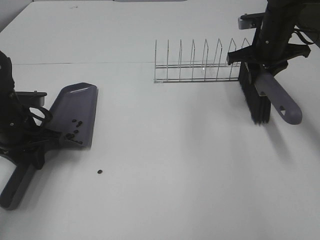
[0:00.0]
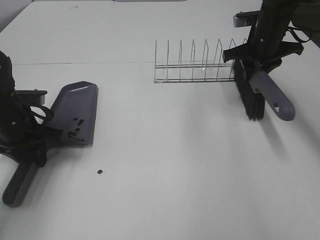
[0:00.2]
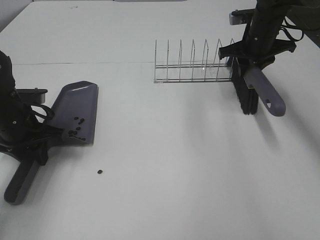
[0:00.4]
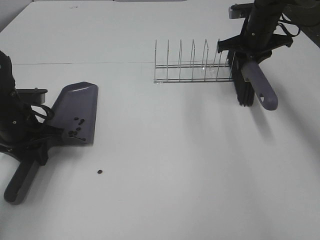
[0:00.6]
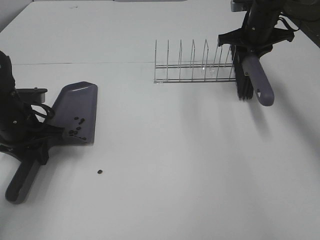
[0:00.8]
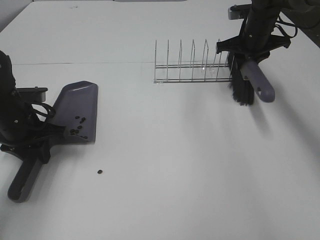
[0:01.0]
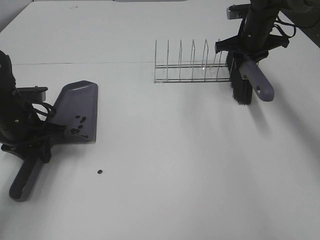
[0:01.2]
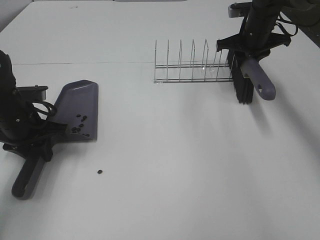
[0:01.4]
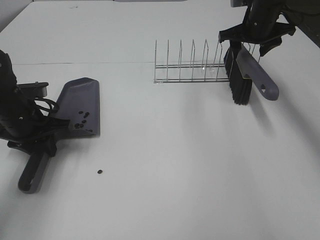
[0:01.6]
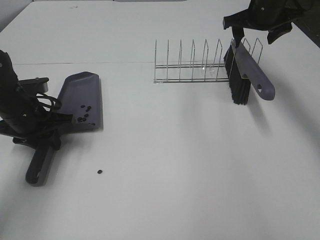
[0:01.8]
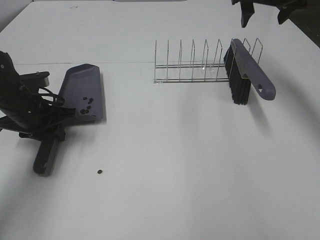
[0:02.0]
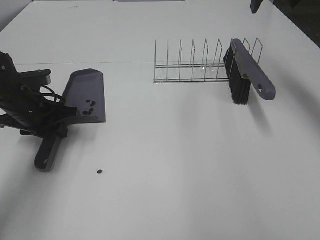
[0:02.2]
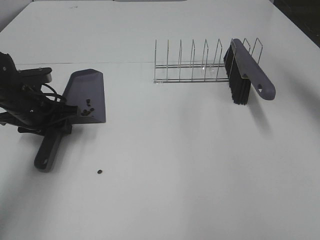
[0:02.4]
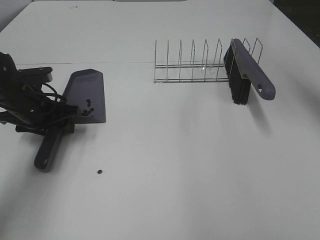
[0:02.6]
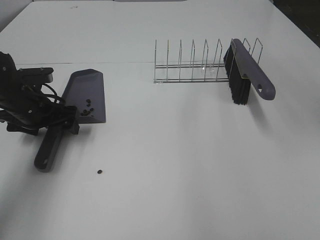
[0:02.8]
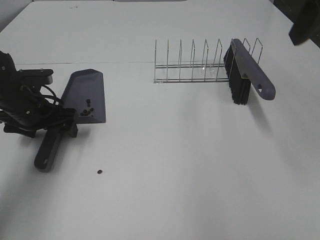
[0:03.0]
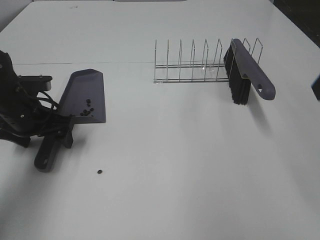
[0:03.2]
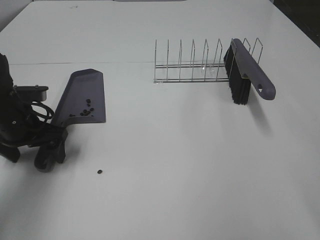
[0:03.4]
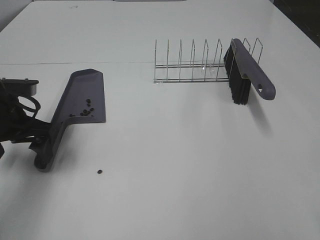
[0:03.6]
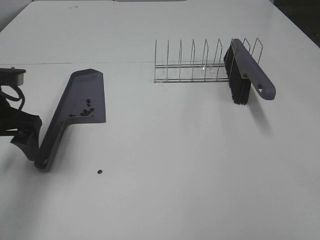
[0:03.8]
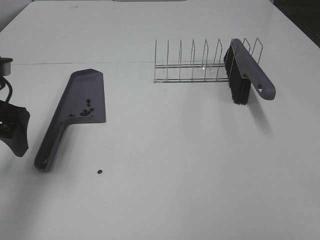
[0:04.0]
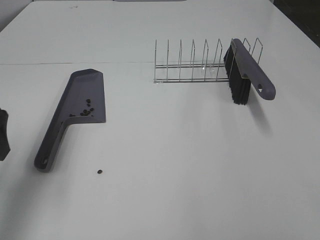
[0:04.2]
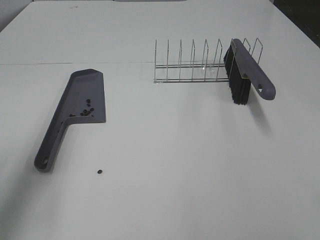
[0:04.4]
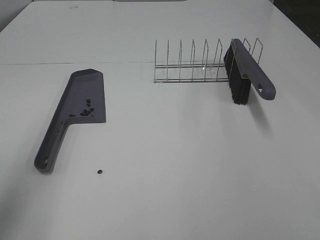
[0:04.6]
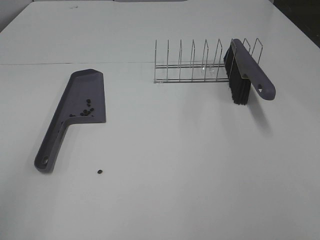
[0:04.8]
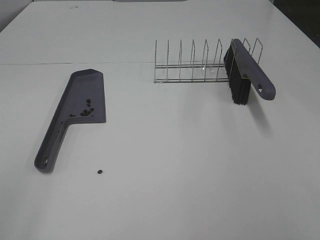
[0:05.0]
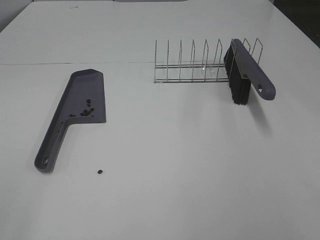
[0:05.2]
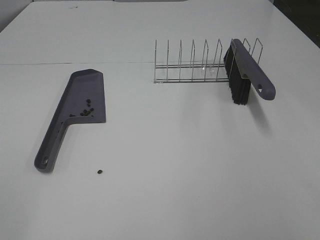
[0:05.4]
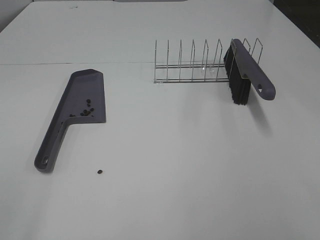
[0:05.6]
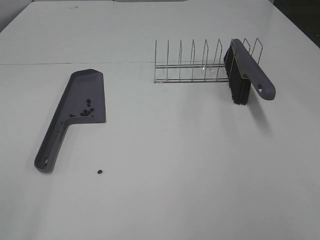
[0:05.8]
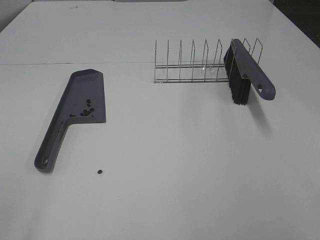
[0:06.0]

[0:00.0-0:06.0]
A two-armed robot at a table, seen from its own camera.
Task of the whole recording: Sweep Coffee Bean.
0:00.0 to 0:01.6: The right gripper goes some 5 cm forward, and opens.
0:01.6 to 0:03.0: The left gripper opens its fingers. The right gripper goes about 30 cm backward and upward.
0:03.0 to 0:04.4: The left gripper is displaced backward and upward by roughly 25 cm.
0:04.4 to 0:06.0: The left gripper heads backward, covering some 20 cm.

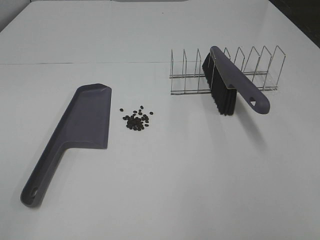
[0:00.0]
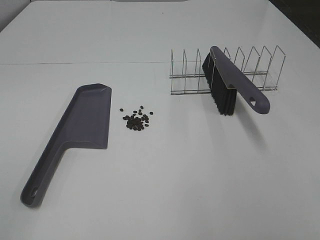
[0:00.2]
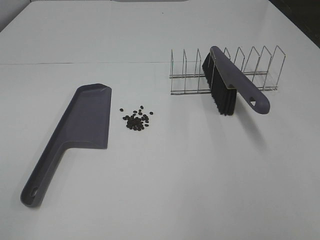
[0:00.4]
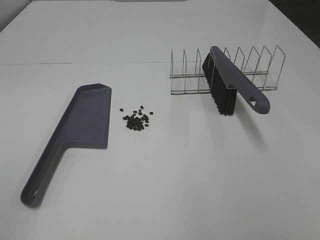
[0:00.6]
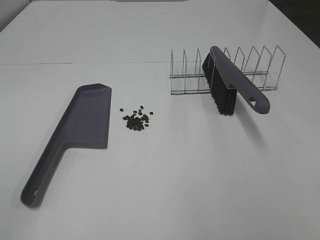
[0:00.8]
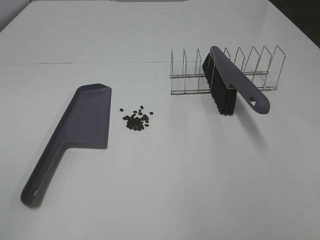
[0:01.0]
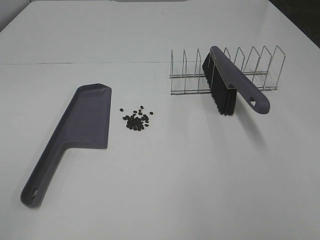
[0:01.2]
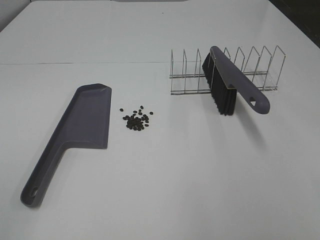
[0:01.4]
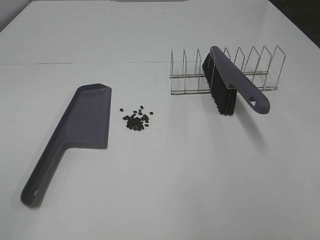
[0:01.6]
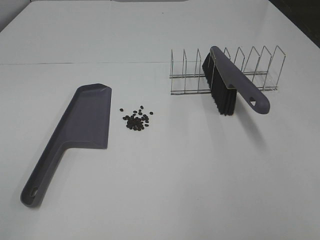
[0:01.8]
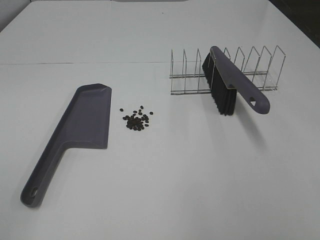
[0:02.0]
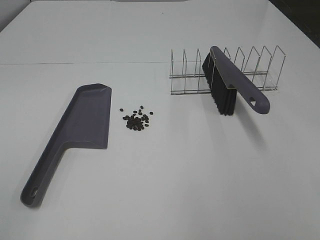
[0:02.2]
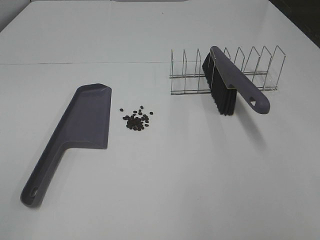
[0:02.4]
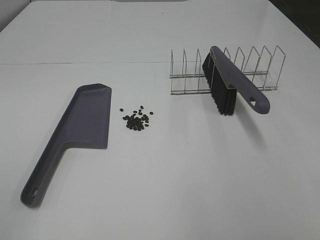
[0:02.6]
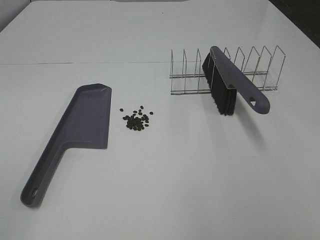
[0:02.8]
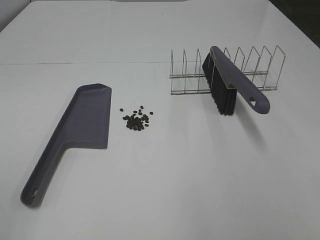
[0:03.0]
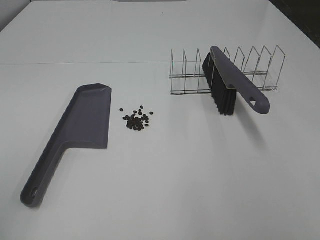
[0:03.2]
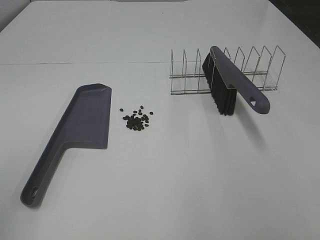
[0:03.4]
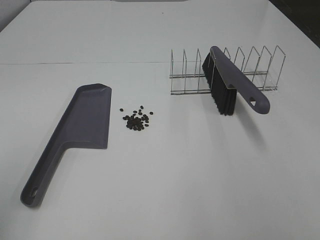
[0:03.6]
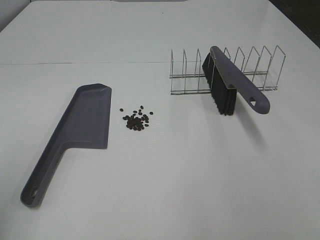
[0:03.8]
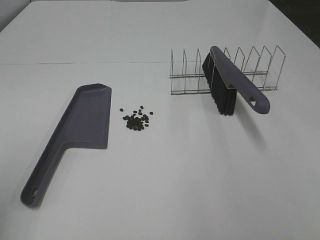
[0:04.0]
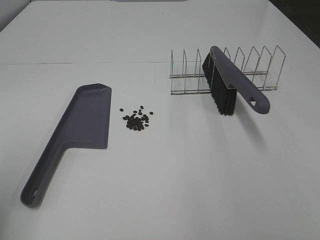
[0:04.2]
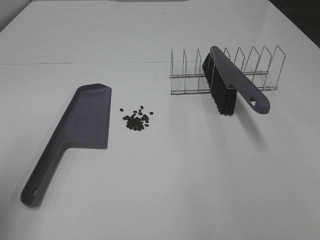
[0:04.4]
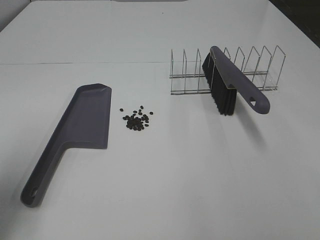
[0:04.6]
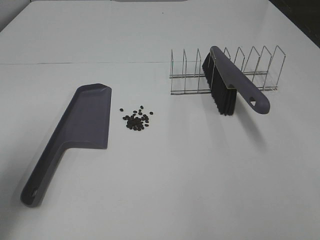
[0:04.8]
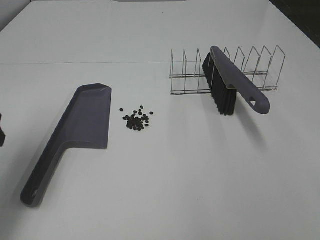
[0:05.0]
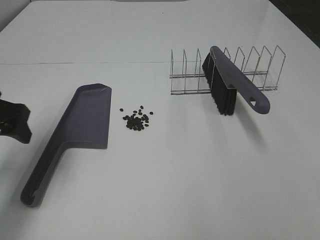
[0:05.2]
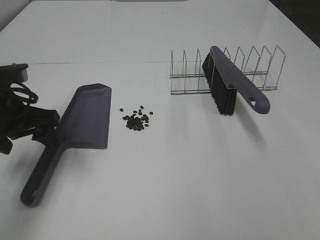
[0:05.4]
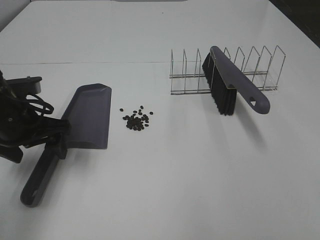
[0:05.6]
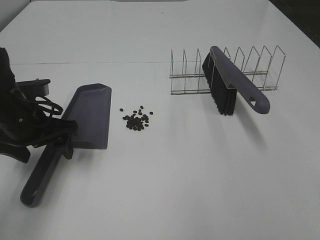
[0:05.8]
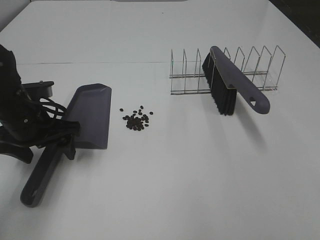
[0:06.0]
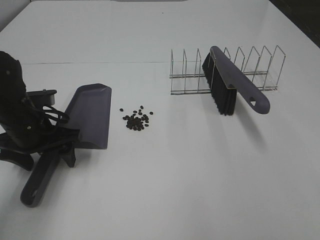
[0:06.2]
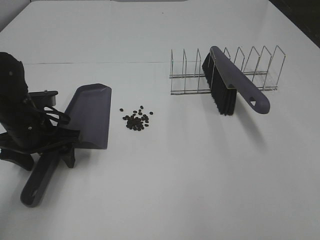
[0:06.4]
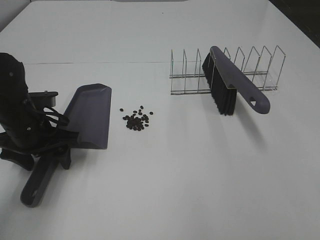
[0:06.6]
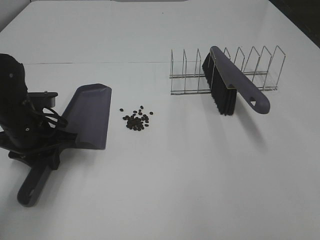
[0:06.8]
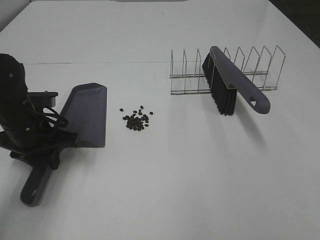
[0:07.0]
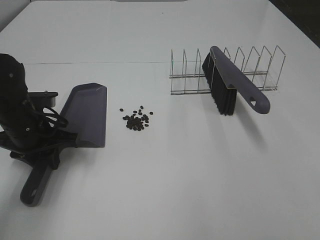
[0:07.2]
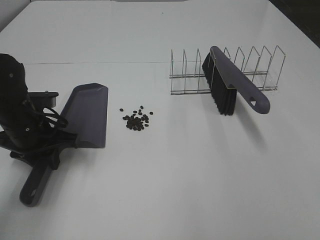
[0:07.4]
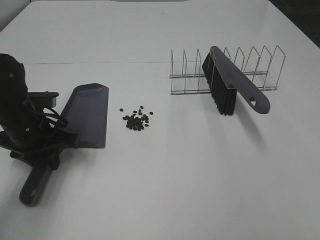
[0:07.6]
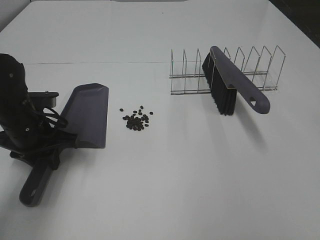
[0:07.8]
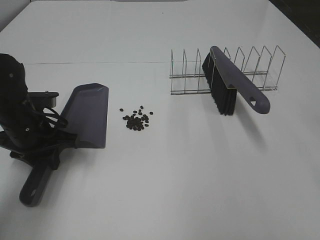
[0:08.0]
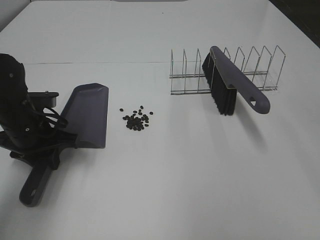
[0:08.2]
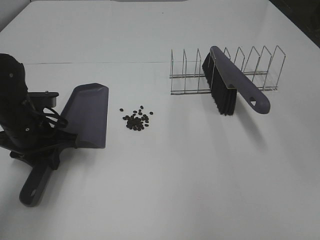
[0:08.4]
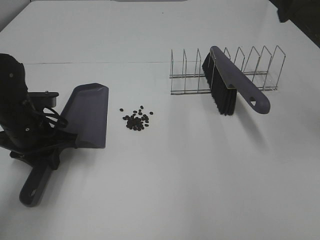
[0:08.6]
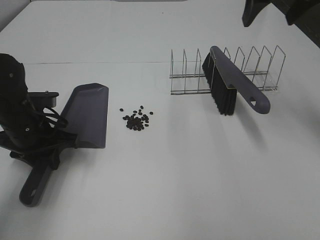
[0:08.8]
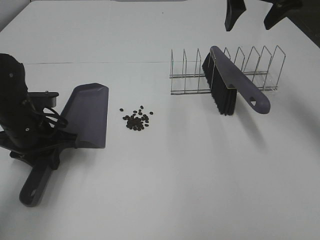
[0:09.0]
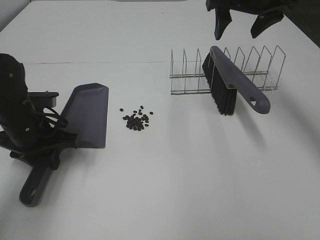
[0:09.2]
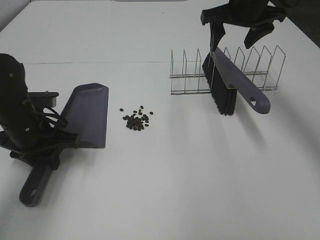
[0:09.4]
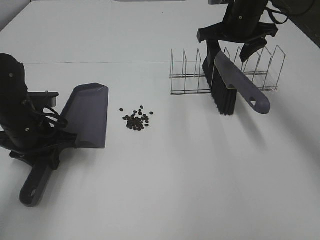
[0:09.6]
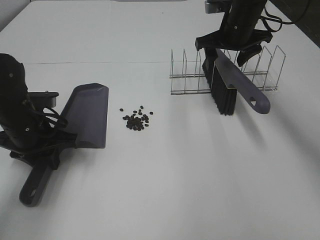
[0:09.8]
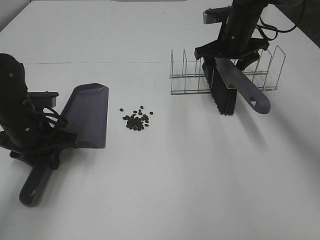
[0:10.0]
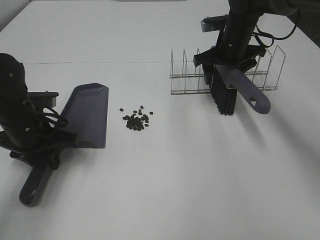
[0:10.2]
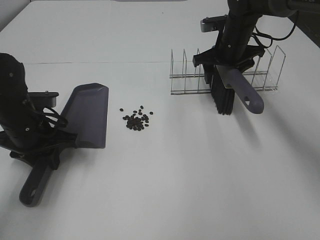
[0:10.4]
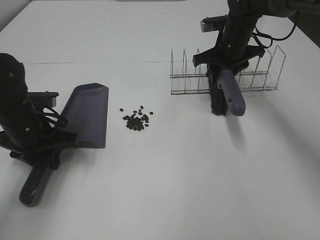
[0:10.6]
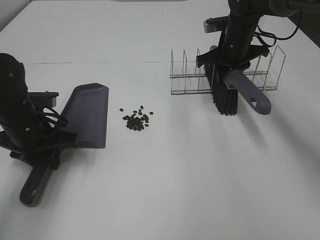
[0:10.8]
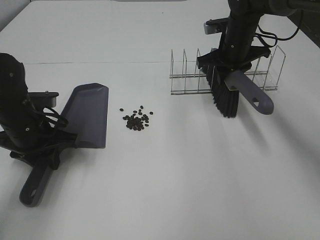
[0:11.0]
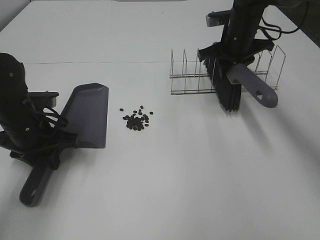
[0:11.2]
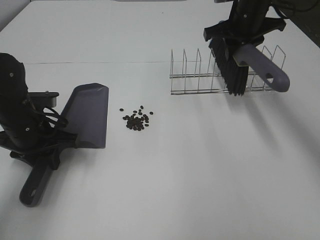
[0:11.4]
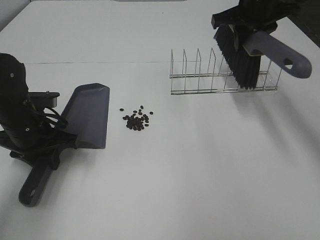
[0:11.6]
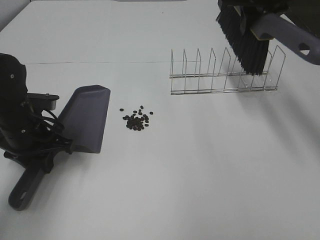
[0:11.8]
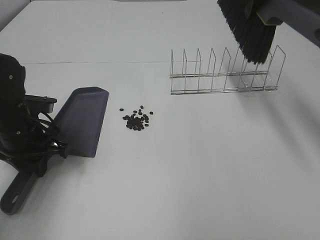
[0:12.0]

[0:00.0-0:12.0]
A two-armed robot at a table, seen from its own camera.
Task of the whole recording: Sweep Coffee Bean.
Step, 0:00.0 to 0:07.0: Left hand: grab the dustpan.
Step, 0:07.0 to 0:10.6: Right hand:grab the broom.
0:00.0 to 0:03.0: Both grippers stay put.
0:03.0 to 0:04.4: The left gripper goes approximately 10 cm forward.
0:04.4 to 0:06.0: The left gripper moves forward, downward and to the right, roughly 25 cm.
0:06.0 to 0:07.6: The left gripper closes.
0:07.6 to 0:09.0: The right gripper shifts about 40 cm forward.
0:09.0 to 0:10.4: The right gripper goes some 20 cm downward and forward.
0:10.4 to 0:12.0: The right gripper travels upward and backward by about 20 cm, and closes.

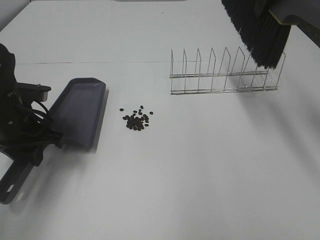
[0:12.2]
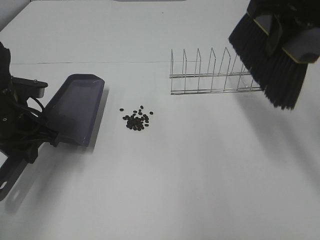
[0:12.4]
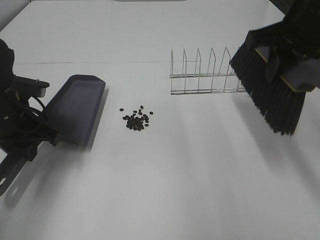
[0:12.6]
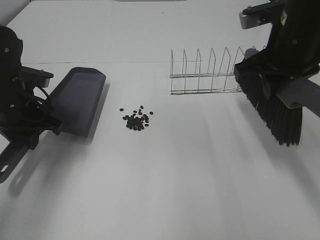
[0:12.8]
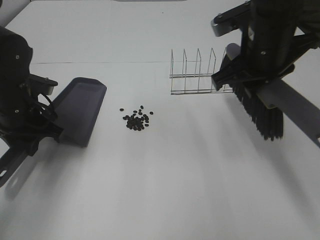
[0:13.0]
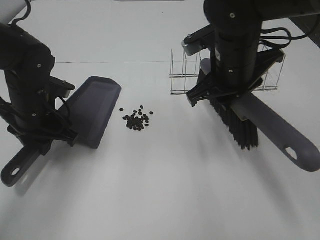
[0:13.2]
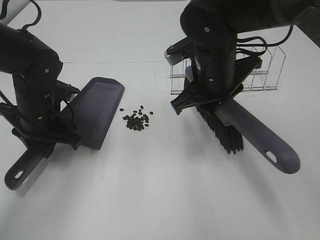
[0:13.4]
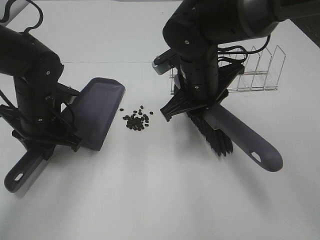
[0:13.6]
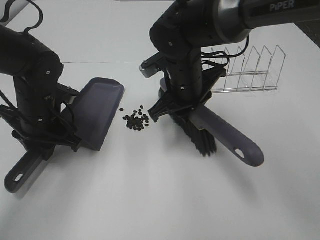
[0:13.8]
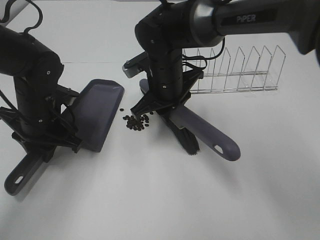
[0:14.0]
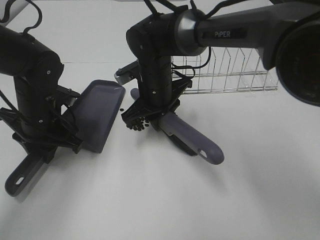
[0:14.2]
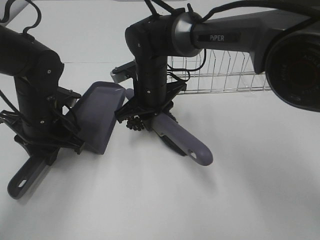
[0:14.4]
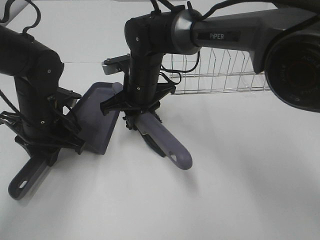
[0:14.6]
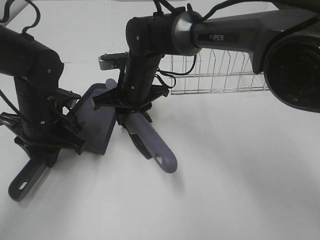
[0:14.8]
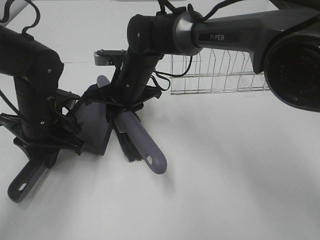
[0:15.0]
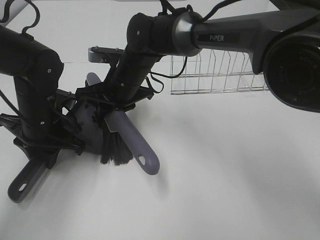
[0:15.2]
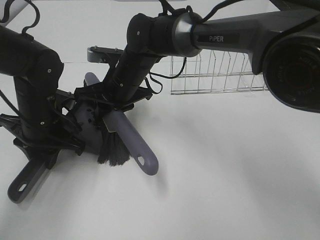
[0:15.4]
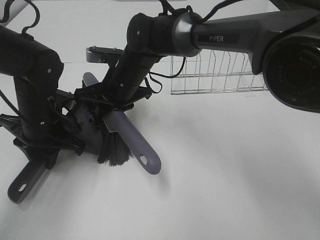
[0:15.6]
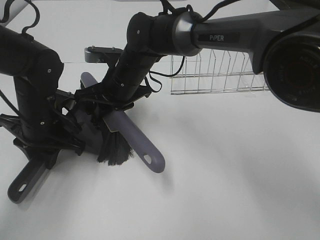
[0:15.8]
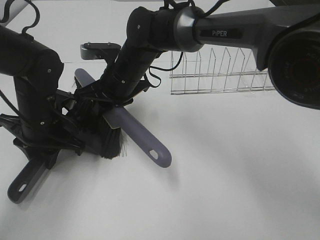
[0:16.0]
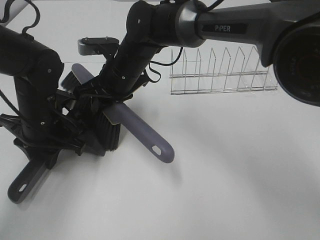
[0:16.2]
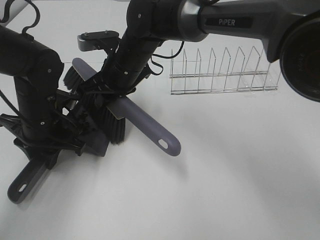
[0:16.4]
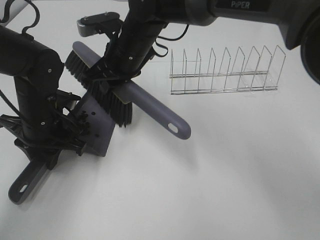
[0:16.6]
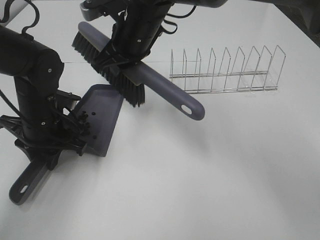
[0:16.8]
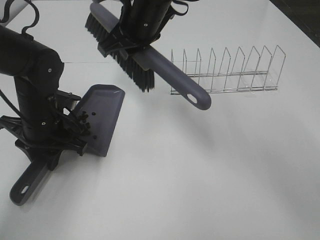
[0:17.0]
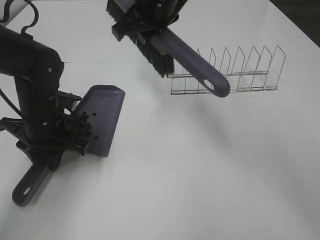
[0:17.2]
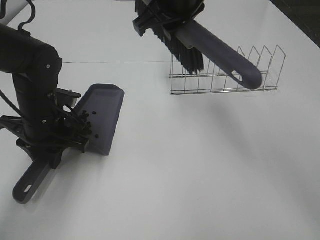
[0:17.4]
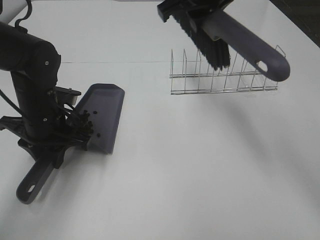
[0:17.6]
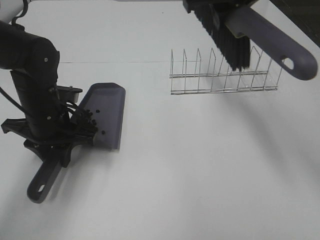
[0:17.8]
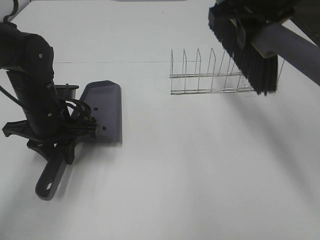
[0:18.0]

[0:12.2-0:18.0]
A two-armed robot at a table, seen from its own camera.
Task of the whole recording: Sweep Coffee Bean.
Step, 0:12.2 to 0:16.4: Right hand:sweep the coffee beans into the dustpan.
0:12.2 to 0:13.6: The right gripper goes approximately 25 cm downward and to the left.
0:13.6 to 0:15.0: The right gripper goes approximately 10 cm to the left and forward.
0:15.0 to 0:16.6: The right gripper moves upward, about 5 cm.
0:16.6 to 0:18.0: The right gripper is displaced to the right and upward by roughly 20 cm.
